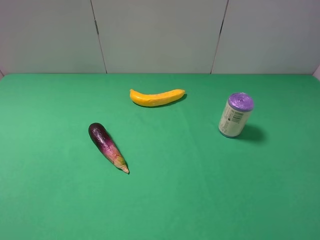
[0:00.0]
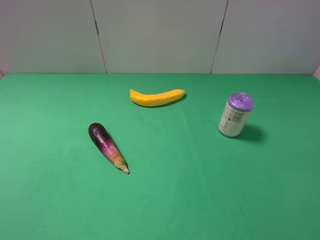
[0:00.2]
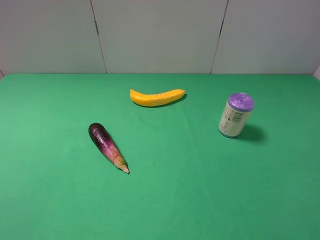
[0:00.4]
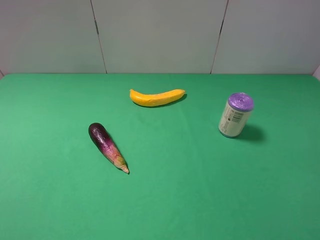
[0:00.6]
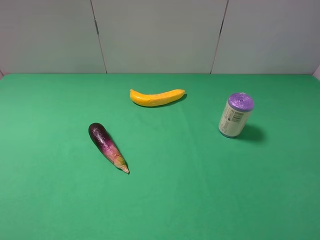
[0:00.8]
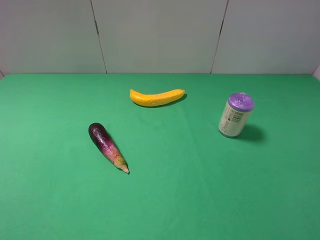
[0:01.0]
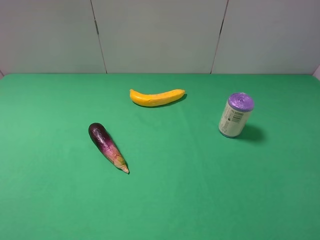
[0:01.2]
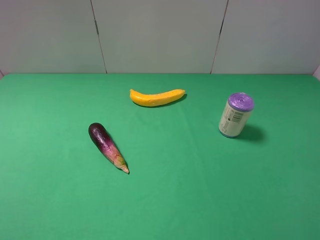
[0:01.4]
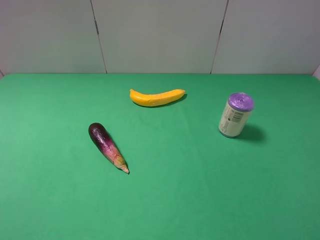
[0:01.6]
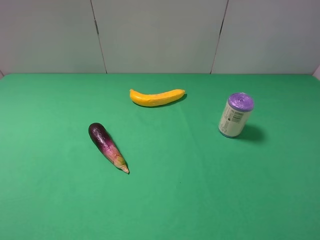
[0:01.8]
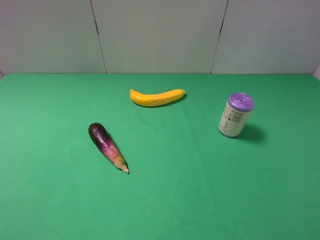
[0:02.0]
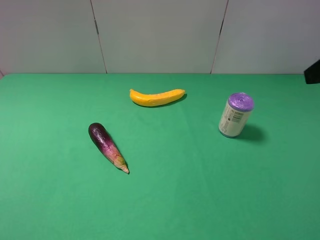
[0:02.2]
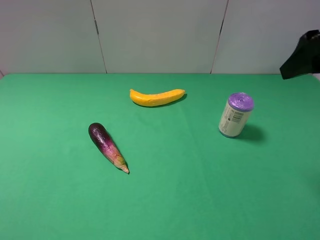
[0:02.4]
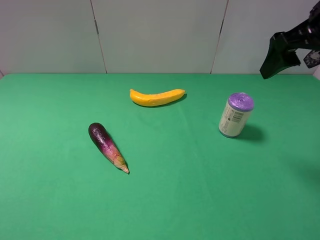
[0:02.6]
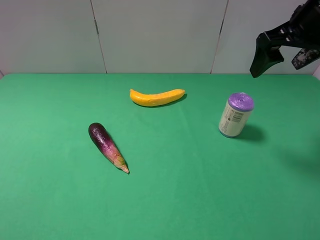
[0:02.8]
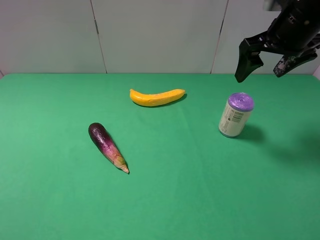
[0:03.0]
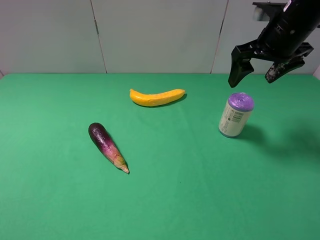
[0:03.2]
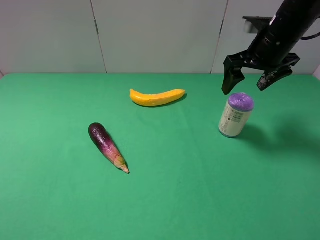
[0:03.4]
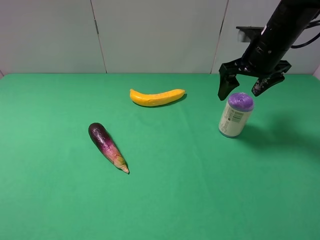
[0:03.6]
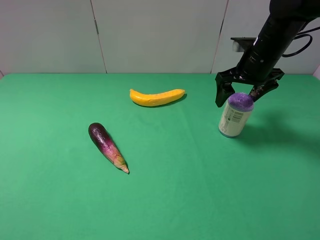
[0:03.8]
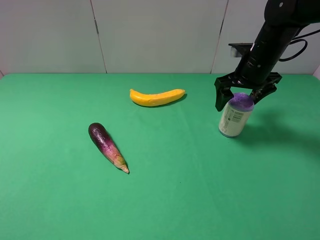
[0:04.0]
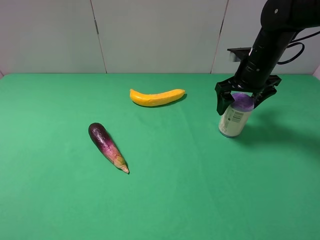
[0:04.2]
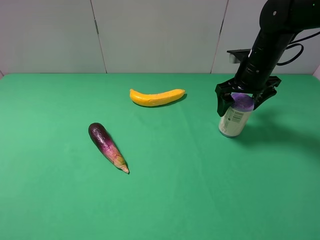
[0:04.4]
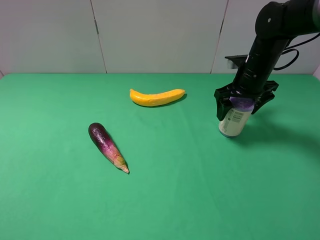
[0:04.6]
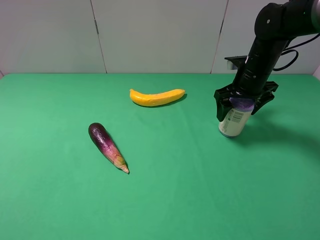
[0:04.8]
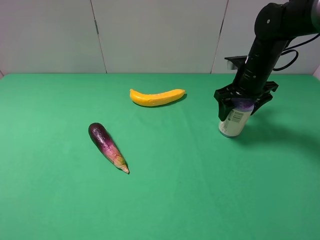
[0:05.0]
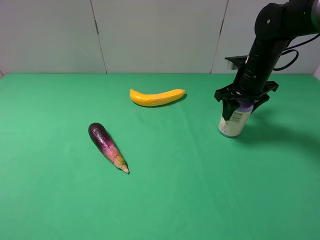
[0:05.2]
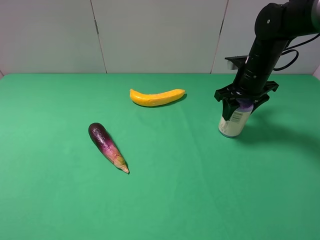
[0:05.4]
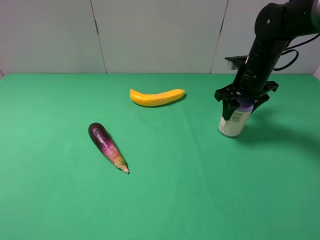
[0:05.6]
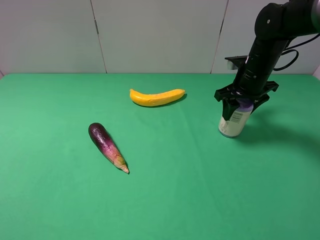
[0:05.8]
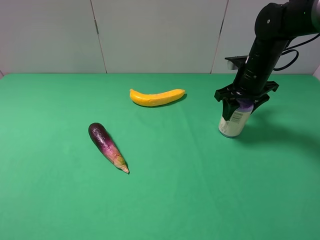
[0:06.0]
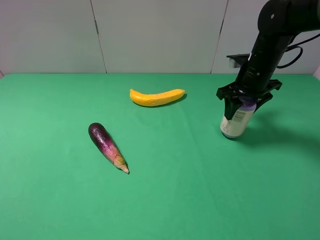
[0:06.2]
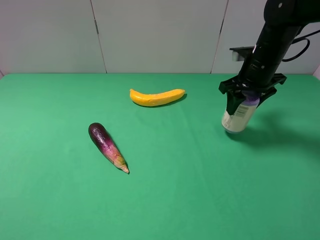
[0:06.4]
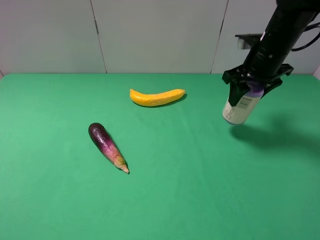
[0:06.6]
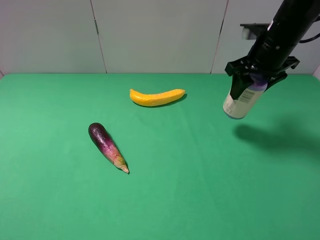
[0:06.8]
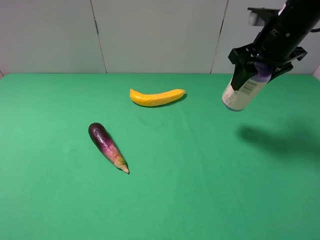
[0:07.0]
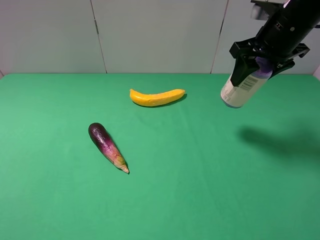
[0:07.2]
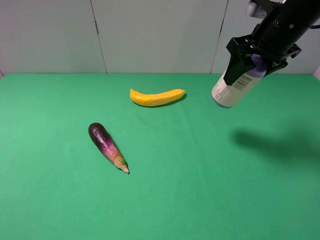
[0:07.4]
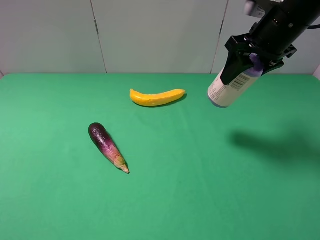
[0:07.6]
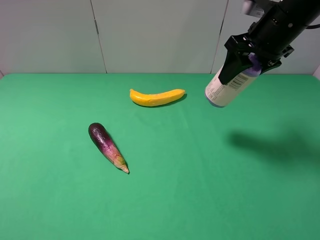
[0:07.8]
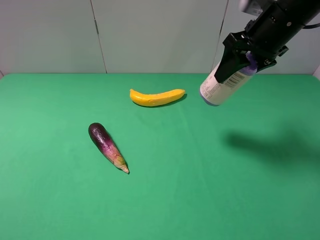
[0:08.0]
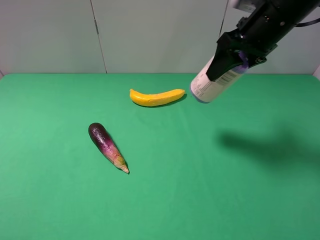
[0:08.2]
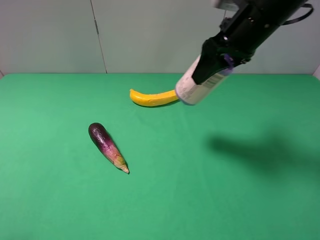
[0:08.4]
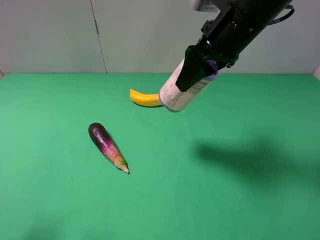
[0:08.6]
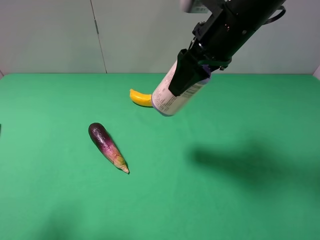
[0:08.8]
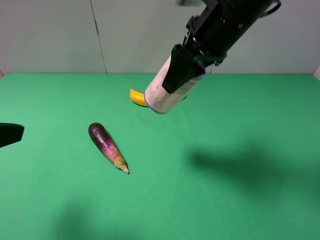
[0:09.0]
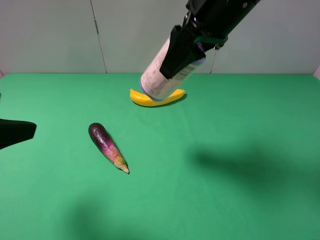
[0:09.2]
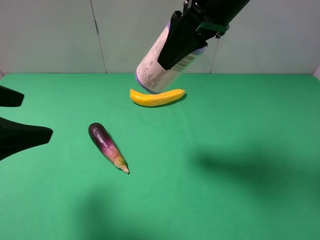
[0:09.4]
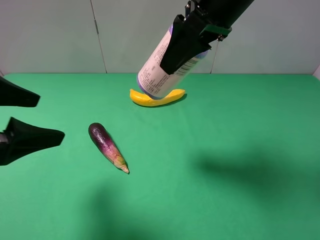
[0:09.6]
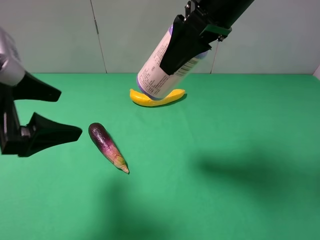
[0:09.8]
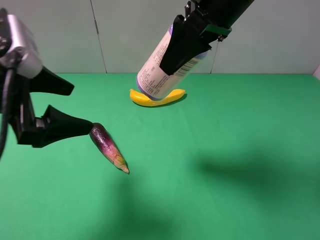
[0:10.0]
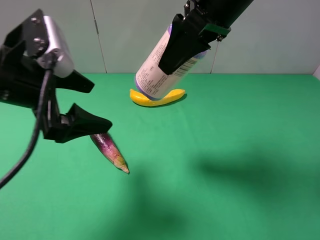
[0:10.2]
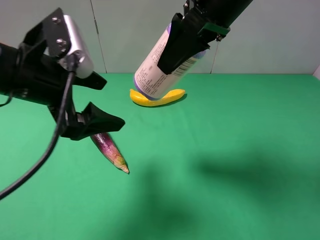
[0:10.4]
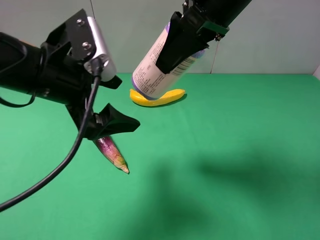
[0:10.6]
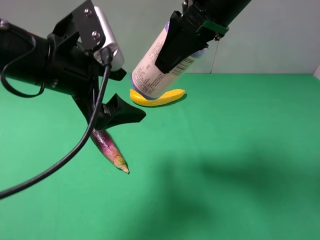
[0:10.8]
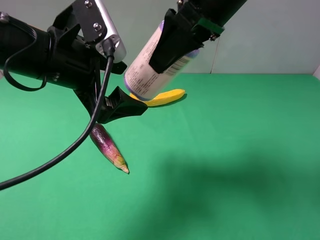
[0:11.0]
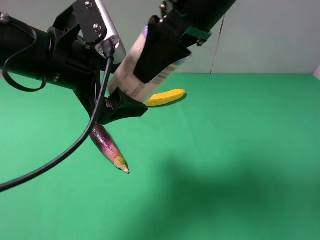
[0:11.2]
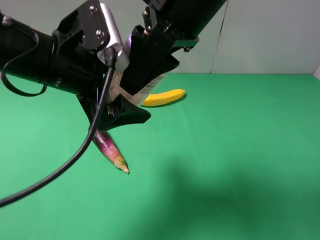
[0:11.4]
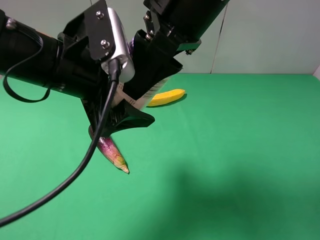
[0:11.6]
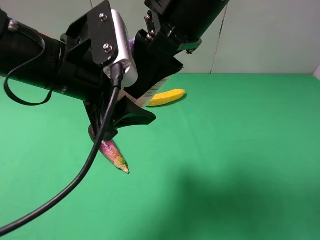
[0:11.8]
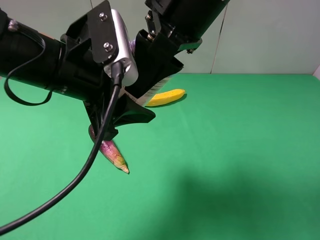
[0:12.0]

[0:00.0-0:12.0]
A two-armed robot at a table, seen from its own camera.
Task of the whole recording: use the right gripper to pick up the item and transfer it from the right gripper to the left gripper.
Step, 0:00.0 to 0:05.4: Use the right gripper to grab the purple garbage bag on the right side of the table.
0:01.6 to 0:03.0: The right gripper shifts some 30 cm forward.
0:03.0 to 0:04.4: The right gripper is displaced downward by roughly 10 cm.
0:04.4 to 0:06.0: The right gripper closes.
0:06.0 to 0:07.6: The right gripper goes roughly 15 cm upward and backward.
0:07.6 to 0:09.0: The right gripper is displaced to the left by approximately 10 cm. Meanwhile the left gripper shifts some 10 cm forward.
0:09.0 to 0:10.4: The left gripper shifts about 15 cm to the right and forward.
0:10.4 to 0:12.0: The left gripper goes roughly 5 cm to the right, and closes. The right gripper shifts by approximately 5 cm.

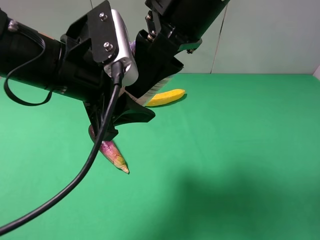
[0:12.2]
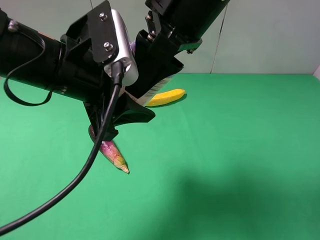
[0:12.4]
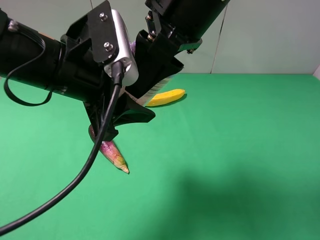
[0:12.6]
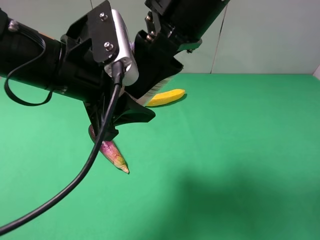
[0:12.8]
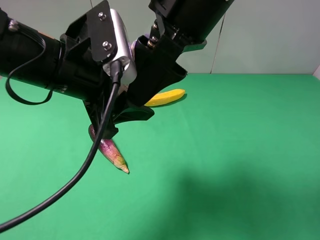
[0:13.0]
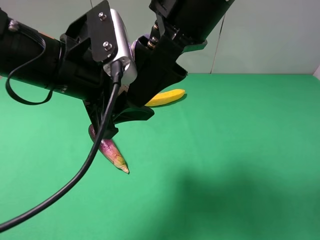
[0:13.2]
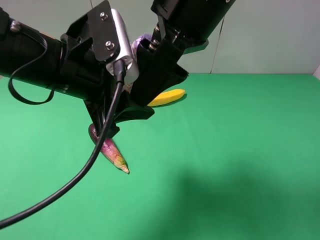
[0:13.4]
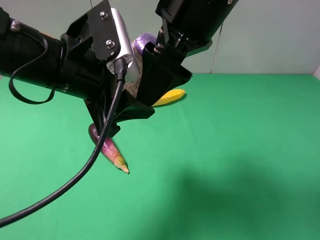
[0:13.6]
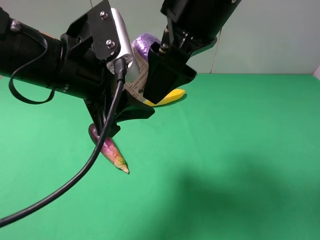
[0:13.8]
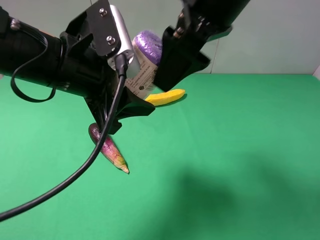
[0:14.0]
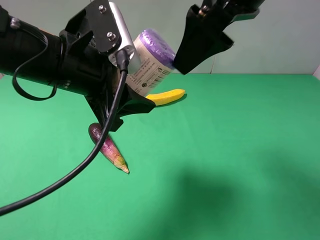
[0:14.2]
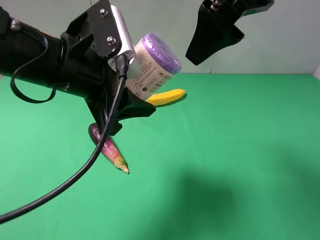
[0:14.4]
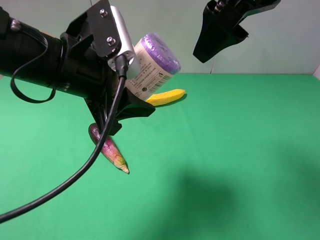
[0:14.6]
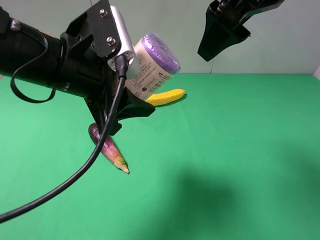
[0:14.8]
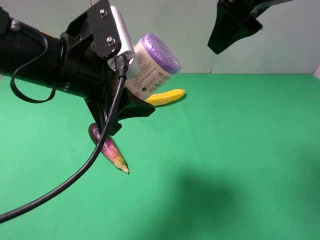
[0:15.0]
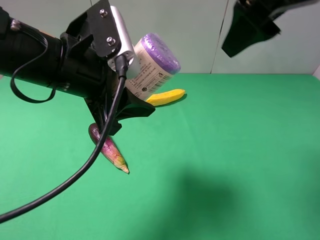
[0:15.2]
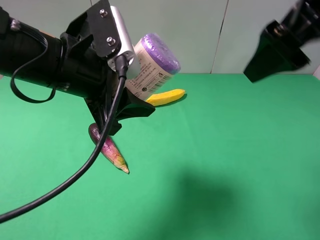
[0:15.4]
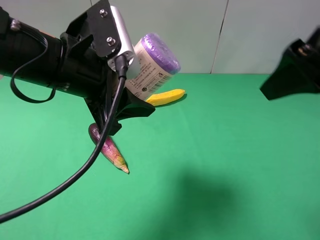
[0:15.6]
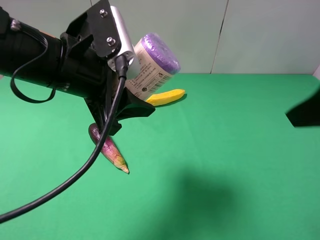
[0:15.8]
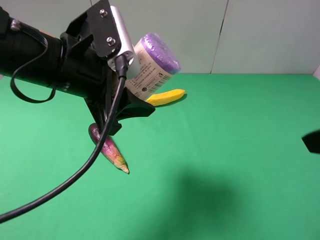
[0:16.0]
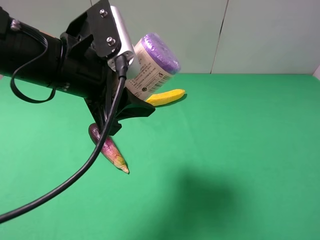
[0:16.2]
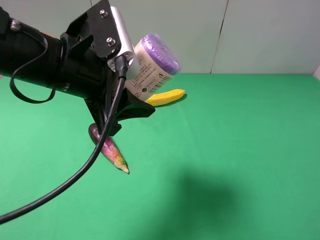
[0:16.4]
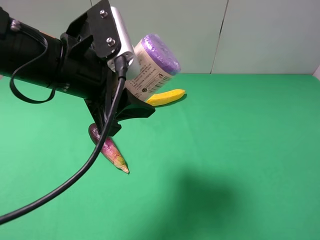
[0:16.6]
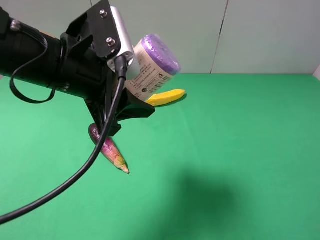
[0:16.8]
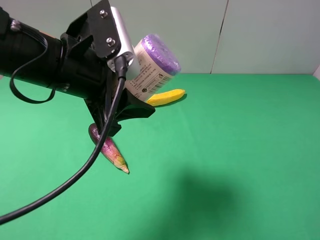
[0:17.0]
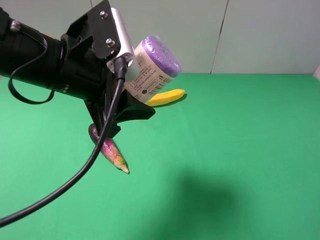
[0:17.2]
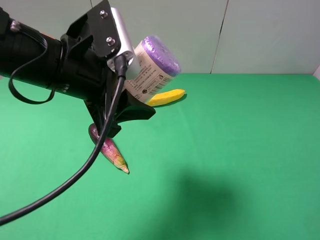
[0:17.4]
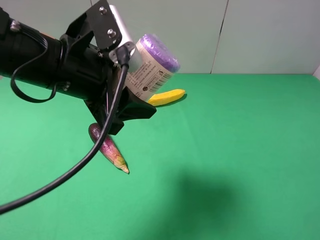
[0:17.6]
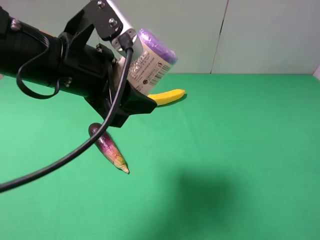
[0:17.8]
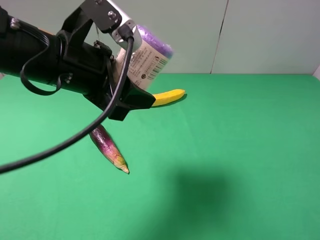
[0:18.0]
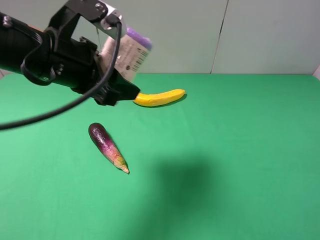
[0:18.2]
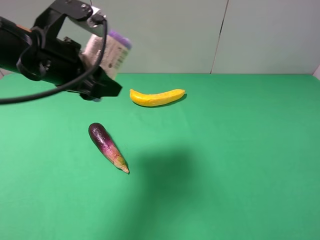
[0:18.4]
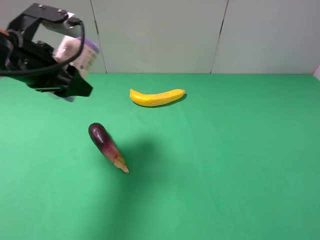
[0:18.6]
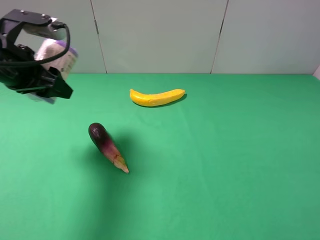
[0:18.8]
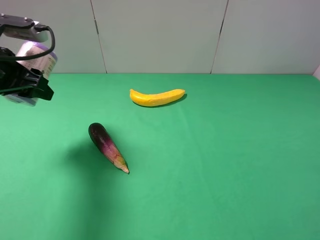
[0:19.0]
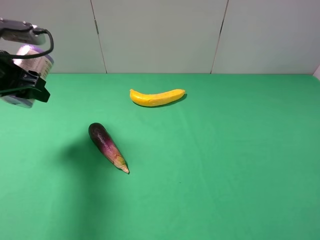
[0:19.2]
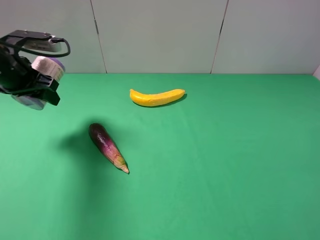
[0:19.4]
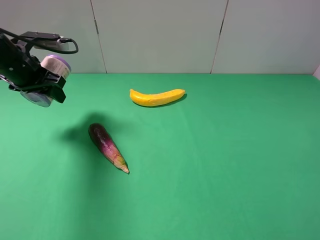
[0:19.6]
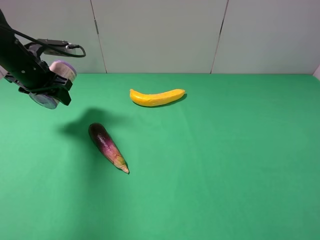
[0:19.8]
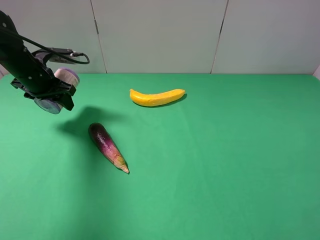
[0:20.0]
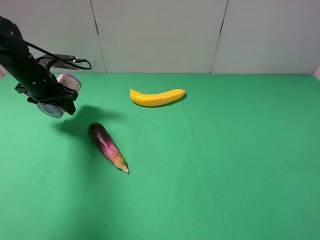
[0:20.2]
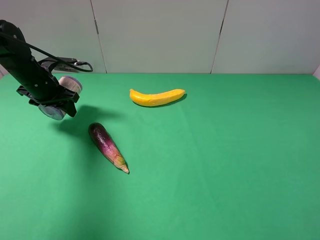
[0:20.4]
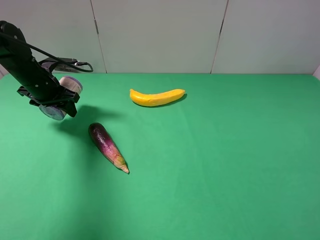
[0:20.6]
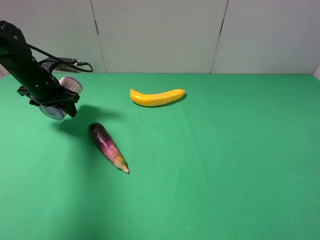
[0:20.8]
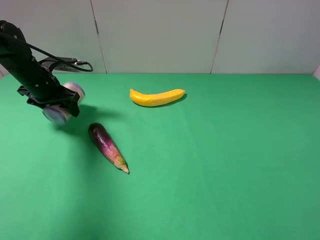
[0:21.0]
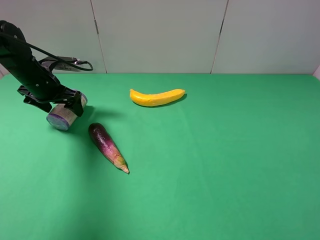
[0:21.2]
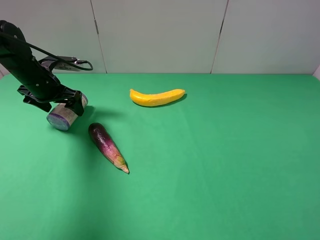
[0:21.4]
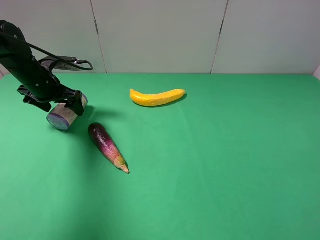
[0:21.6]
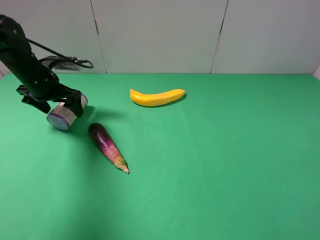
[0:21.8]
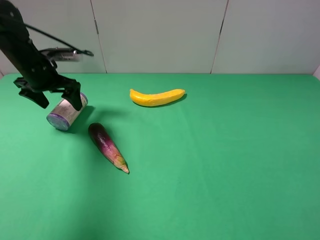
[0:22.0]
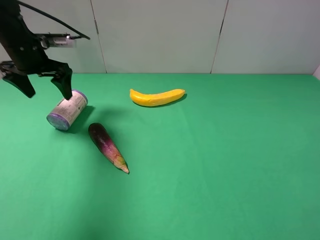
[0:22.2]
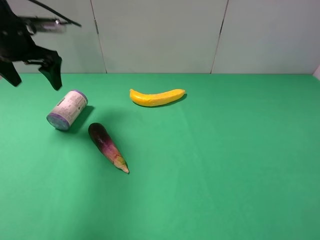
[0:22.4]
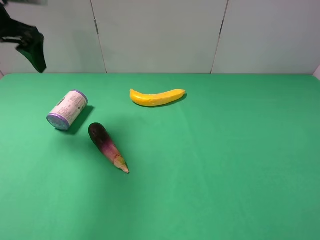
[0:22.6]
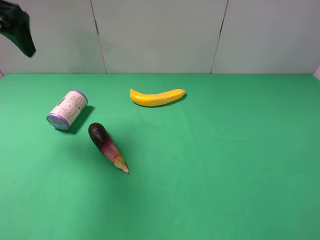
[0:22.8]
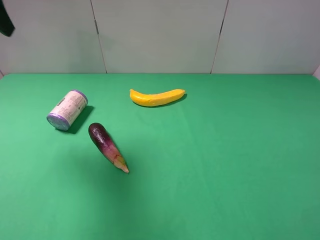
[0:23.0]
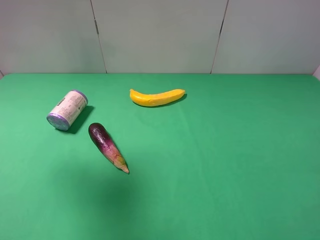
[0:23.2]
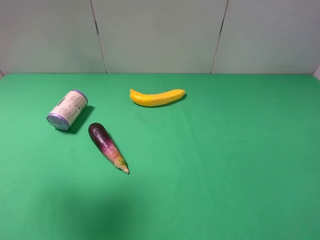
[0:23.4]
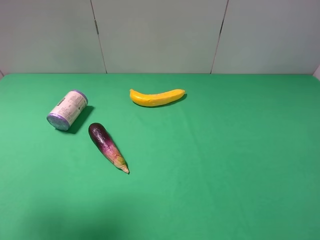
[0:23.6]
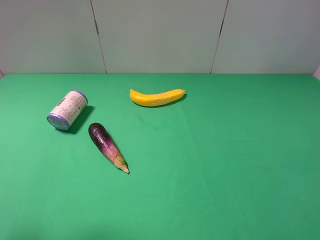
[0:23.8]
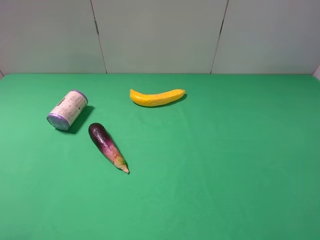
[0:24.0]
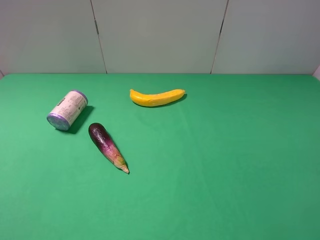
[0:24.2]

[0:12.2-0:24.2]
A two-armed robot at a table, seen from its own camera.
Task of the whole recording: use the right gripper to pick up the item and transfer it from the right gripper to the left gripper.
Step, 0:14.0 to 0:21.2: The left gripper places purple garbage bag on the left side of the table.
0:12.2 to 0:13.8: The right gripper opens up.
0:13.8 to 0:15.2: The right gripper travels to the right by approximately 10 cm.
0:15.2 to 0:16.6: The right gripper travels backward, to the right and downward by roughly 25 cm.
0:18.2 to 0:19.8: The left gripper goes approximately 20 cm forward, to the left and downward.
0:19.8 to 0:21.2: The left gripper opens its fingers.
0:21.2 to 0:22.6: The left gripper is displaced upward by some 15 cm.
0:22.6 to 0:24.2: The left gripper heads backward, covering approximately 35 cm.
